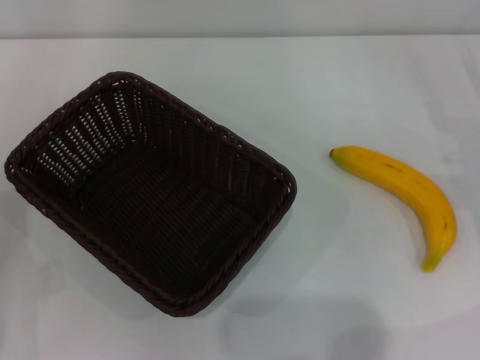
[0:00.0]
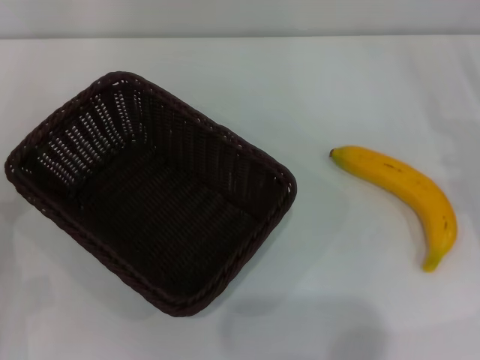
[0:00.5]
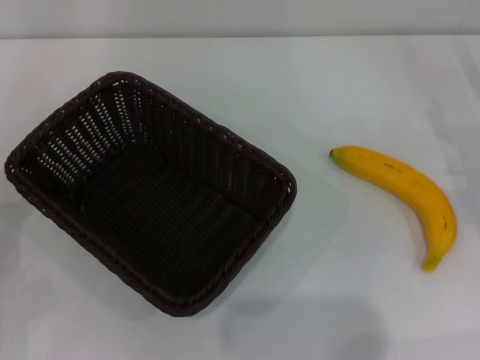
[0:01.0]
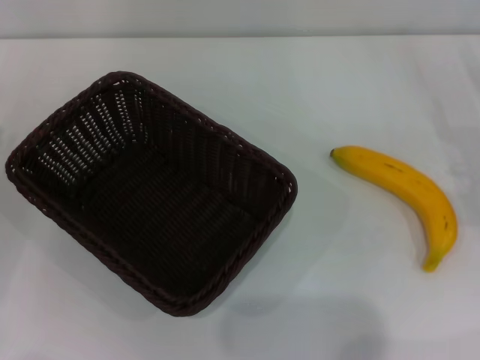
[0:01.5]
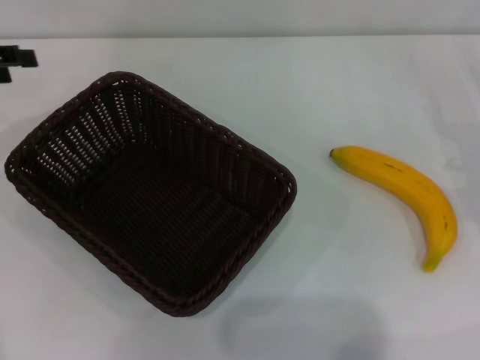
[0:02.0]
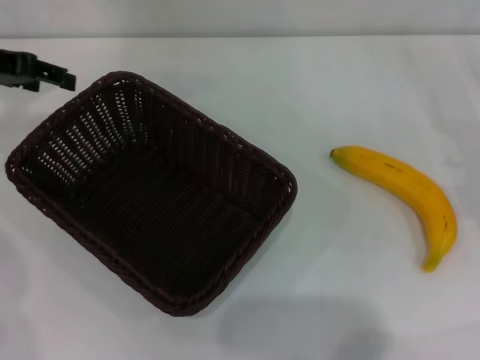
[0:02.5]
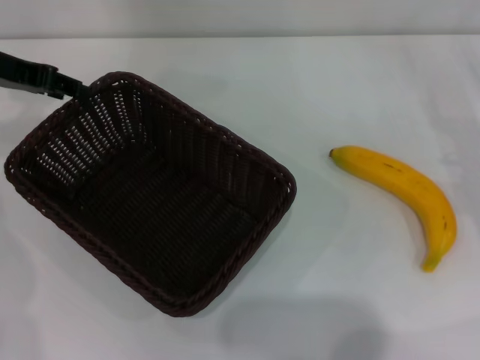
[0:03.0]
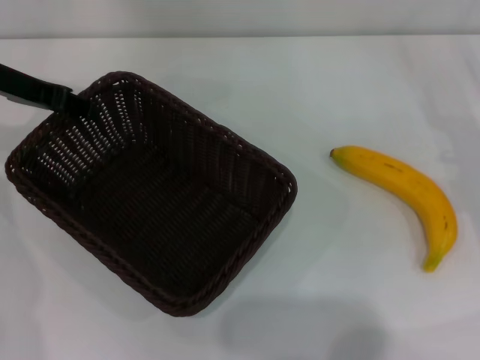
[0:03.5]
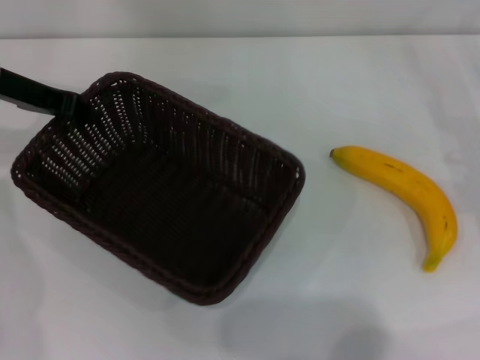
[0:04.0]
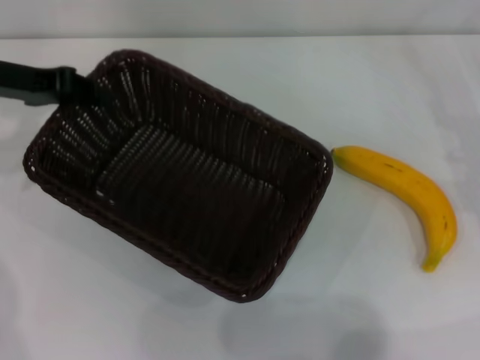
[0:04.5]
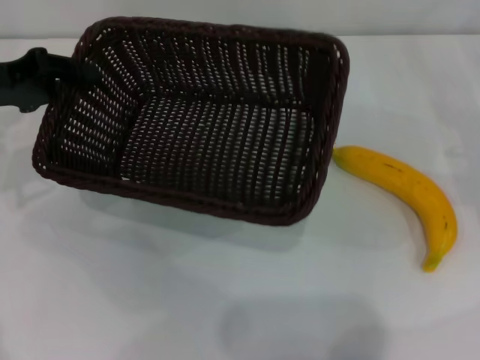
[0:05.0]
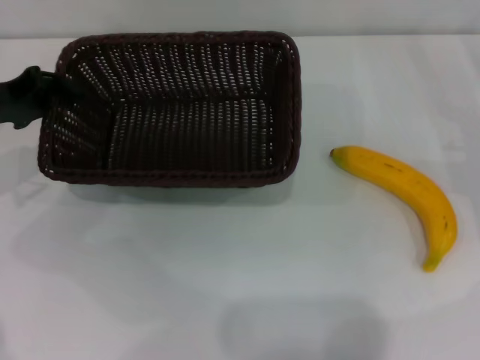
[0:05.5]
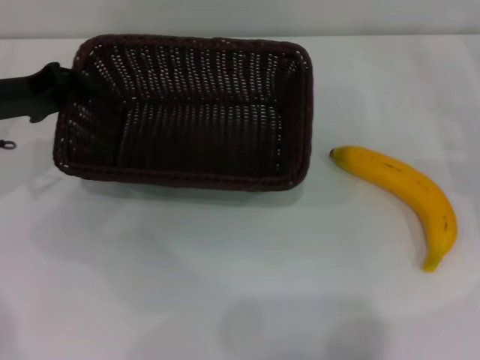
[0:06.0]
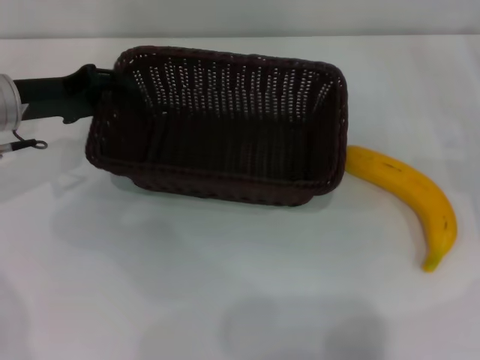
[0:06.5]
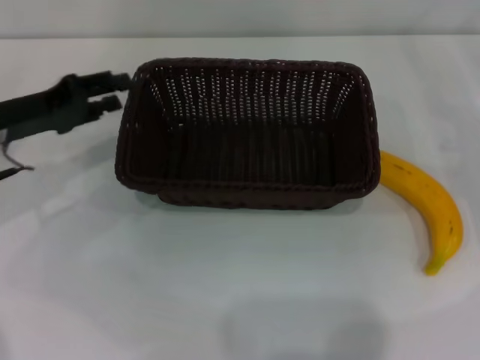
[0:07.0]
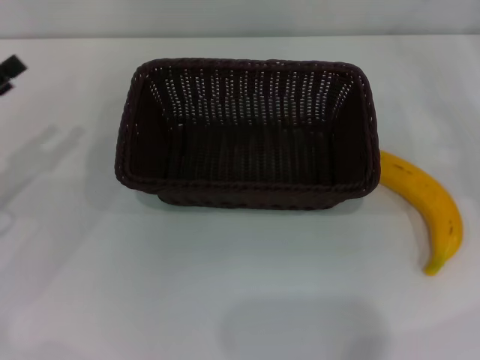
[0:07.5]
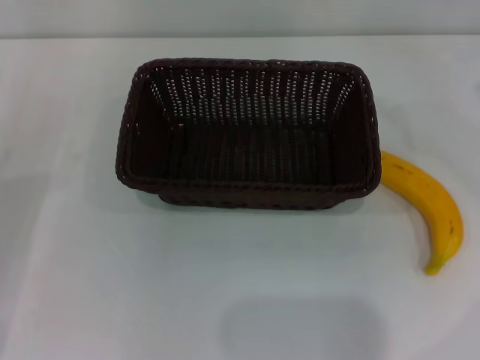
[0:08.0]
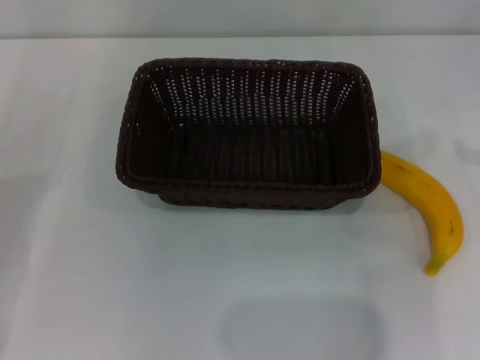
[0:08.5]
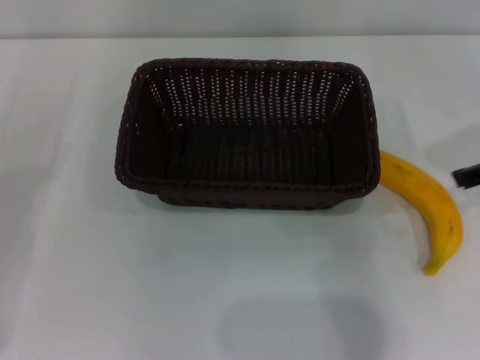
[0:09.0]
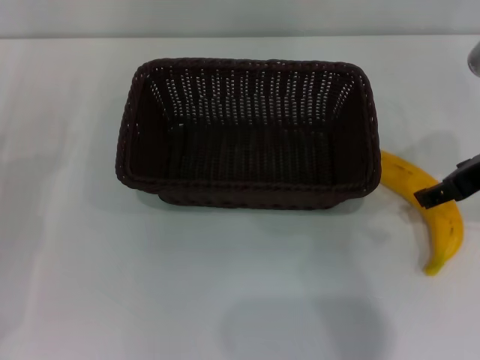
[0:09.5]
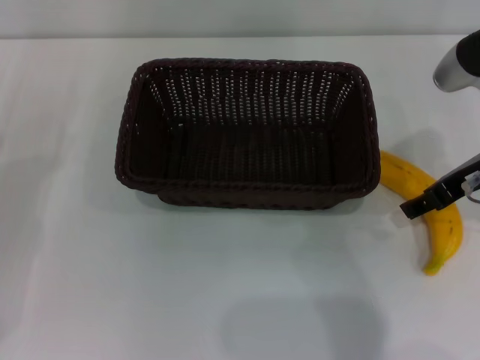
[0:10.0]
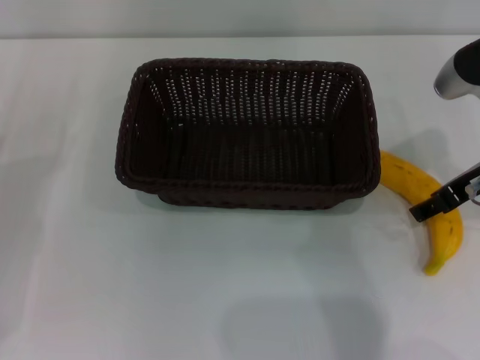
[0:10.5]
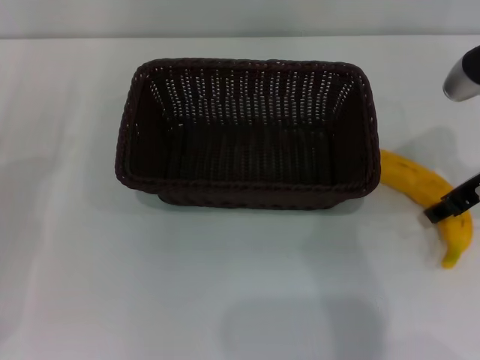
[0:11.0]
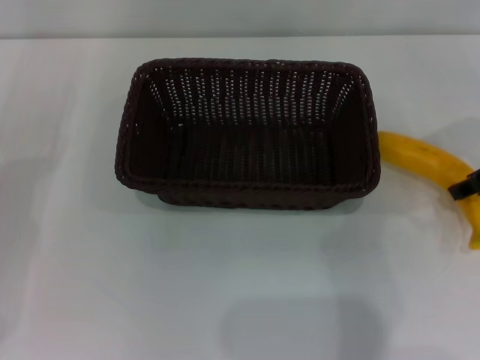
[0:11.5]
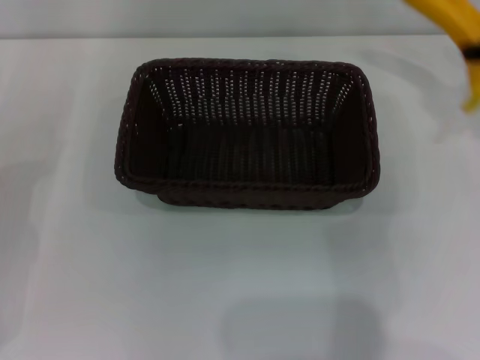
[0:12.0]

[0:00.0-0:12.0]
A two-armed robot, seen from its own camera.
Step, 0:00.0 to 0:04.5: Pick up the dark basket with the left gripper.
Step, 0:05.0 to 0:07.0: Place the dark basket in the center of view with the left gripper.
Step, 0:07.5 to 0:11.5: Pick up the banana with the right gripper.
0:00.0 to 0:02.0: The left gripper travels upward and forward by roughly 20 cm.
0:02.0 to 0:04.0: The left gripper shifts about 10 cm to the right, and closes up.
0:04.0 to 0:06.0: The left gripper ends up some 5 cm from where it was.
0:06.0 to 0:08.0: The right gripper moves upward and to the right, approximately 15 cm, while the left gripper shifts about 15 cm backward, to the left and downward, and opens up.
0:08.0 to 0:10.0: The right gripper shifts roughly 20 cm to the left.
0:10.0 to 0:12.0: The right gripper moves to the right, forward and upward, approximately 10 cm, and closes.

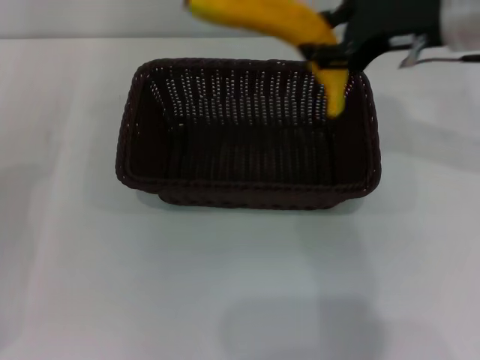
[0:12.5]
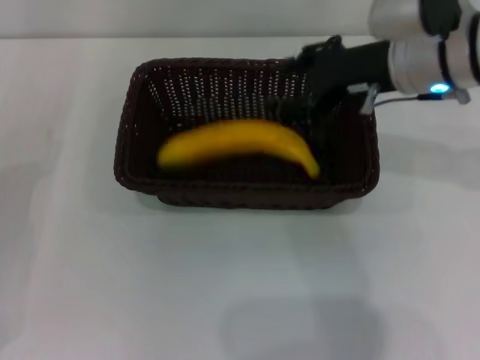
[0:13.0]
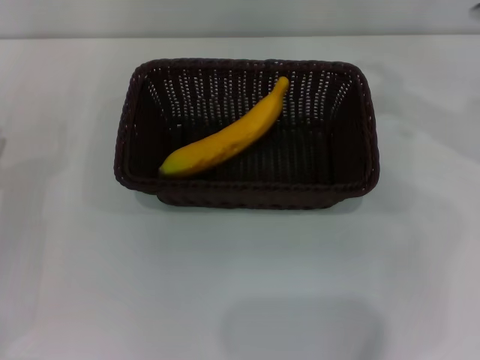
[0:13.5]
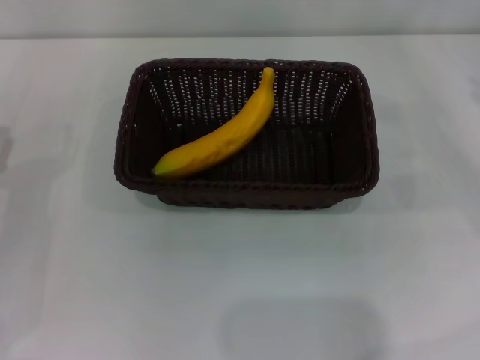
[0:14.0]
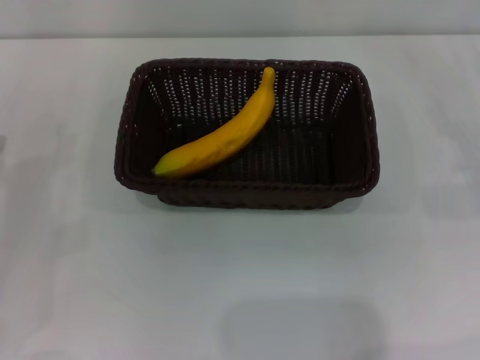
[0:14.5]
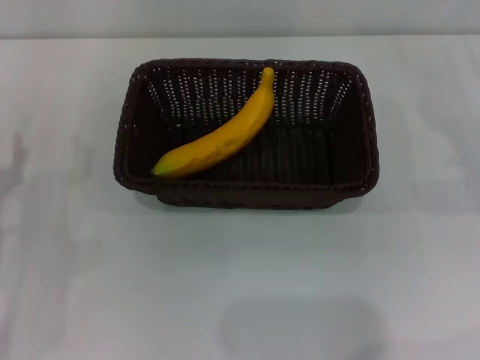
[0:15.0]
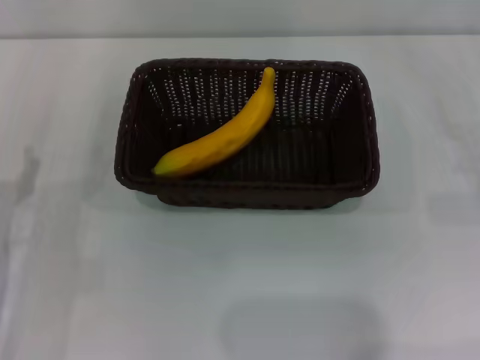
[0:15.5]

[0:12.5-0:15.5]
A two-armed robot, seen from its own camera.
0:12.5 to 0:14.0: The right gripper moves to the right and downward, roughly 20 cm, and opens.
